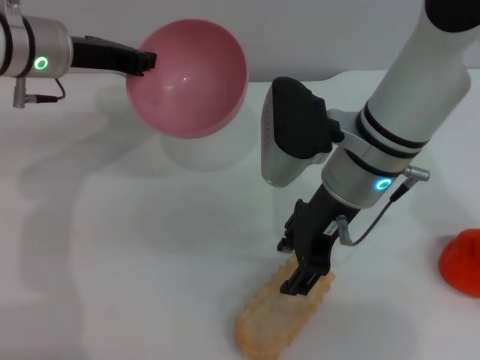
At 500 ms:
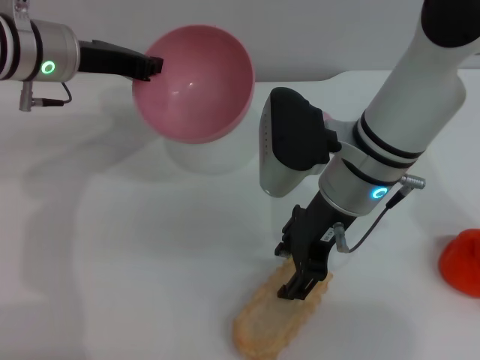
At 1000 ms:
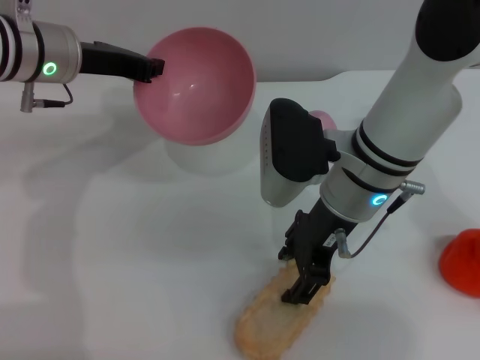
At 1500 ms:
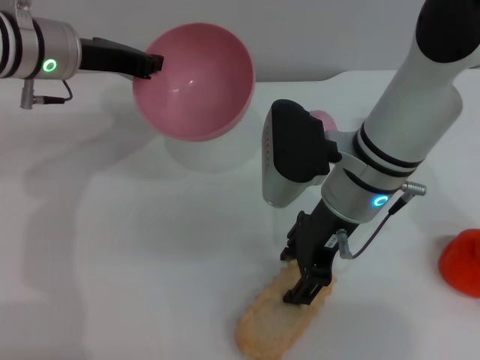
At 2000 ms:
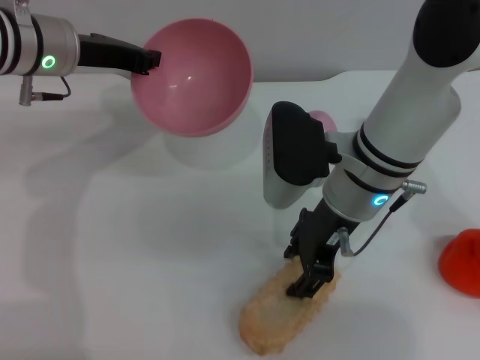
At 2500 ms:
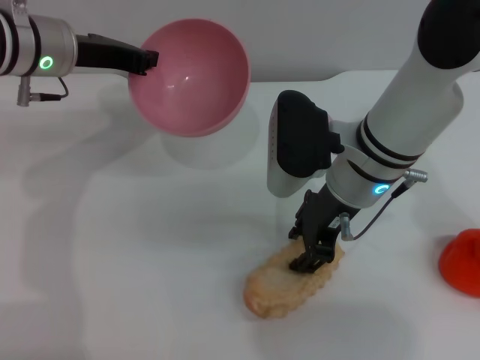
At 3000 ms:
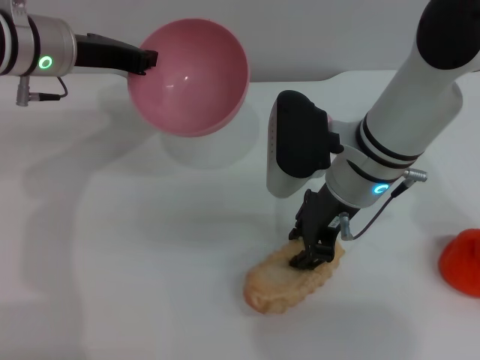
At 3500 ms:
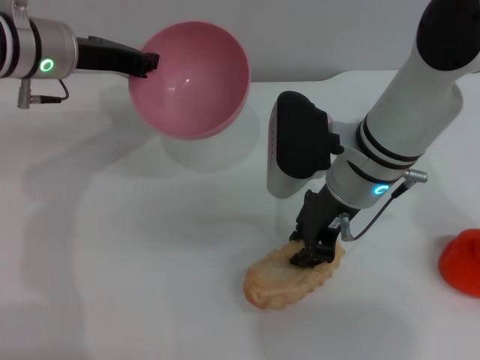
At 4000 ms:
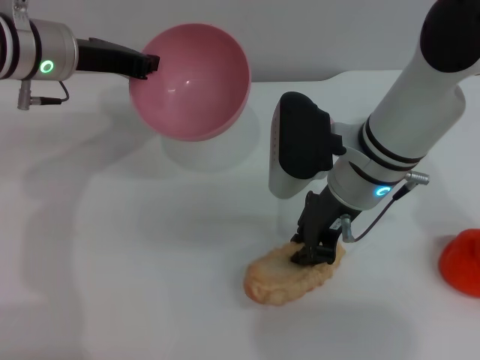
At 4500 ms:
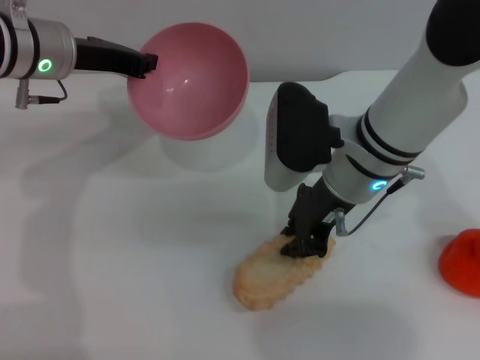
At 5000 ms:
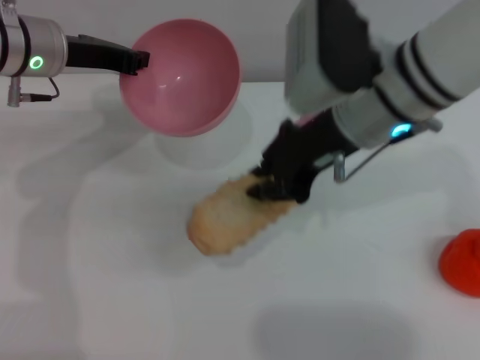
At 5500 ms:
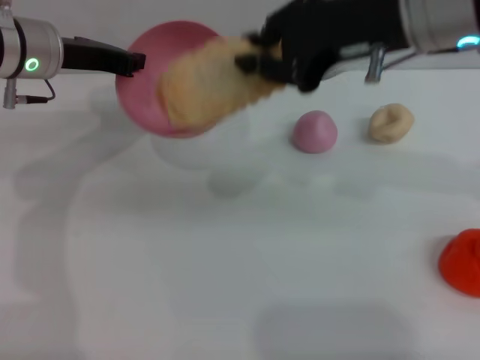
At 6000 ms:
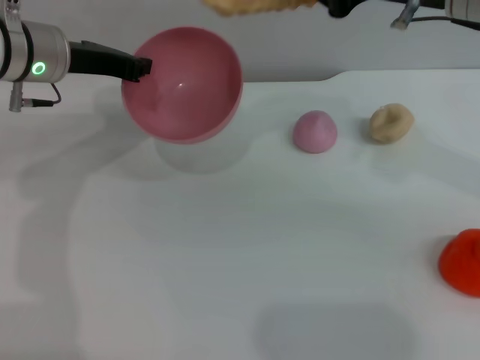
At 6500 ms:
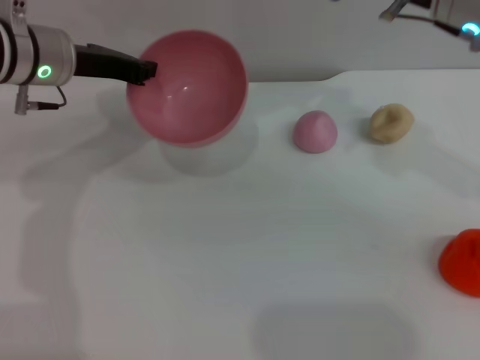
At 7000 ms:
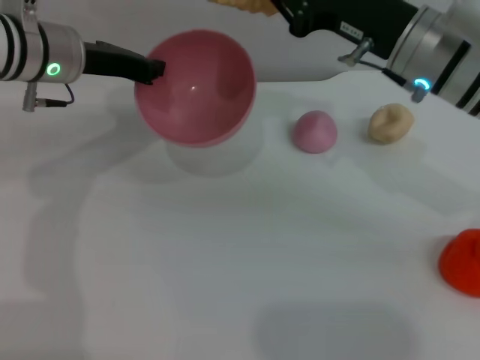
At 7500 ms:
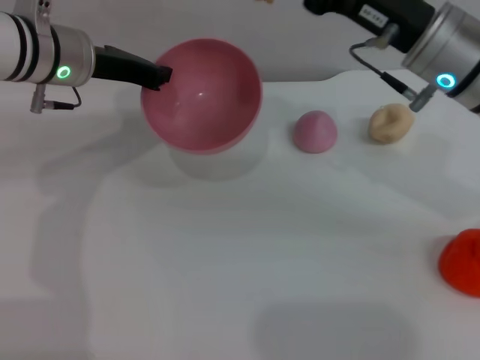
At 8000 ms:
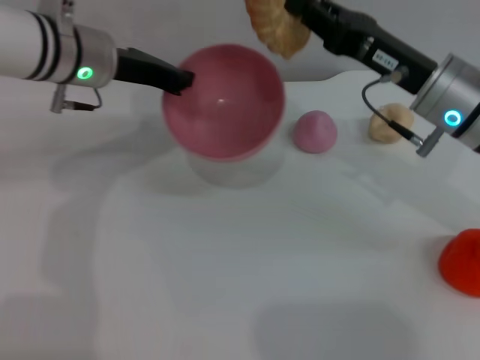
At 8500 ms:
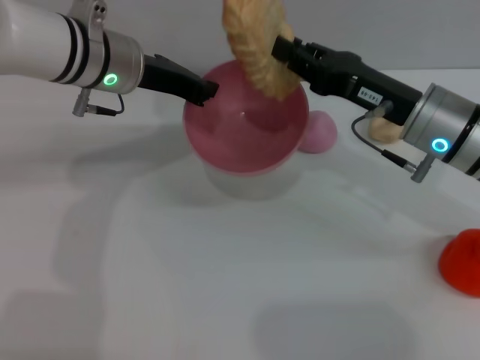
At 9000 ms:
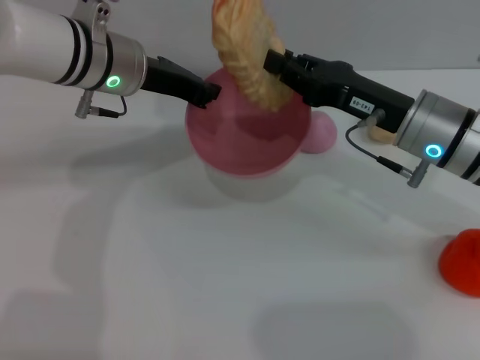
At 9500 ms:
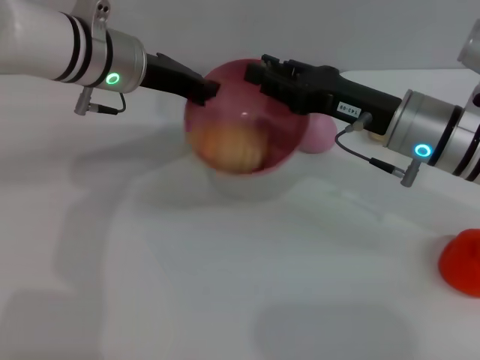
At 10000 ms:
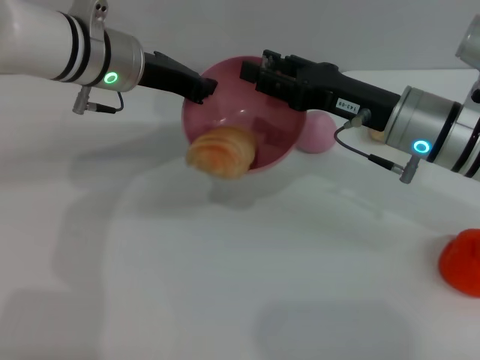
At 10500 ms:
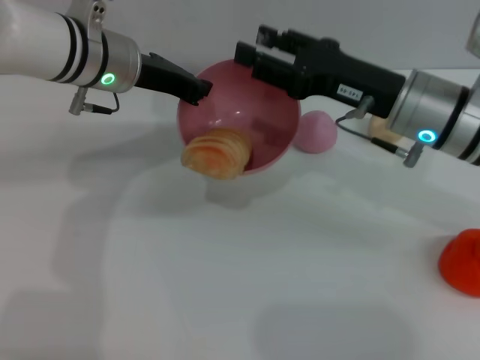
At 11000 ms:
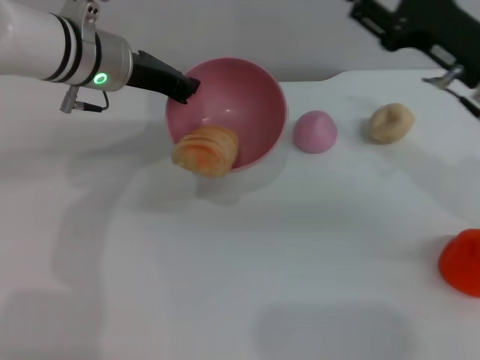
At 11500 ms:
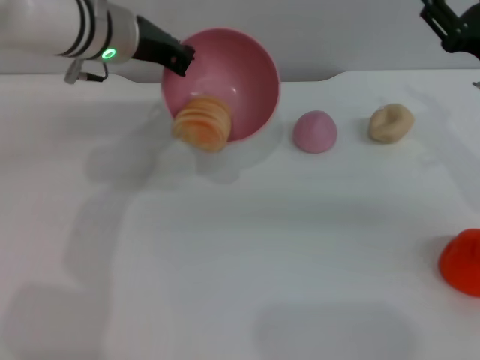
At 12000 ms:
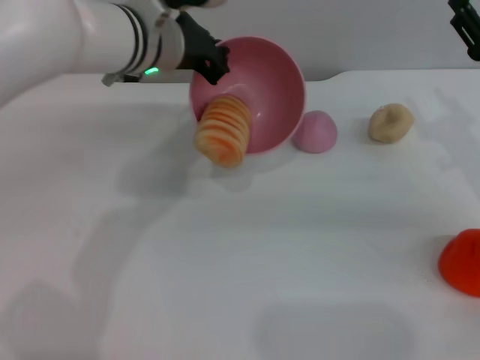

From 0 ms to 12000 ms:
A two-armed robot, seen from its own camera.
Task of the whole recording: put the bread into the pink bowl and pour it out repeatedly.
Step, from 0 ms to 5000 ms: Pick up the bread with the right gripper.
Step, from 5500 ms to 10000 ms: Place the bread into the bowl.
From 0 ms to 2000 ms: The grippers stay close to where they were, moving slightly.
From 2000 ms to 4000 ms: The right gripper closes its fingers.
From 4000 ms to 6000 ms: The right gripper goes roughly 15 cm upward and to the right.
From 6000 ms to 8000 ms: The right gripper is displaced downward by approximately 10 cm.
From 8000 ms to 10000 ms: The right gripper opens up.
From 10000 ms to 12000 ms: The right gripper heads to the right, covering some 10 cm.

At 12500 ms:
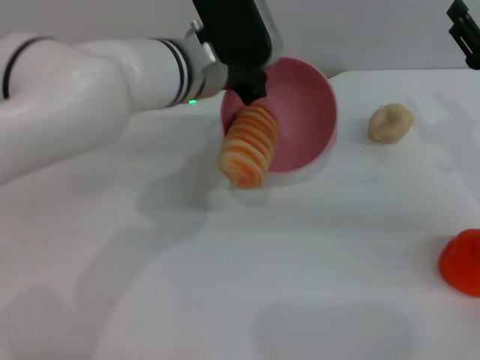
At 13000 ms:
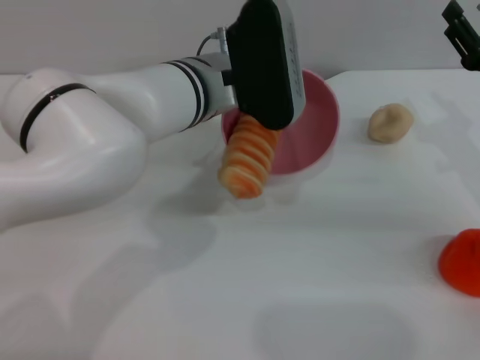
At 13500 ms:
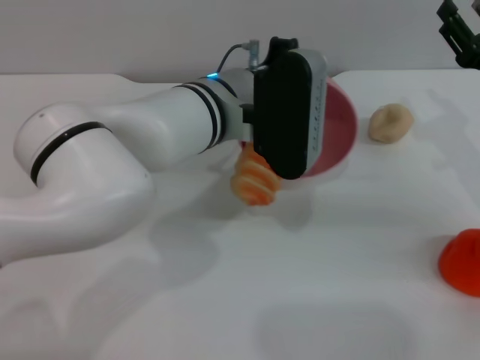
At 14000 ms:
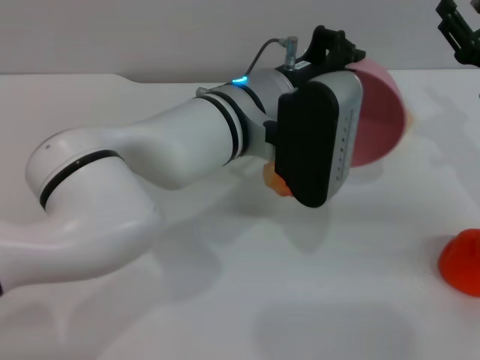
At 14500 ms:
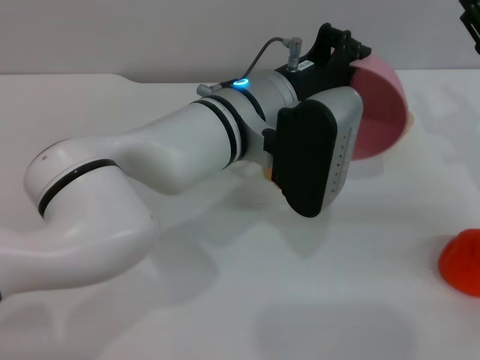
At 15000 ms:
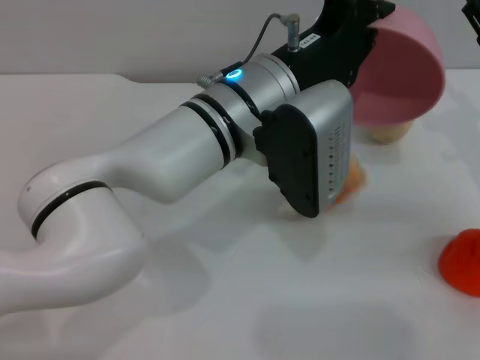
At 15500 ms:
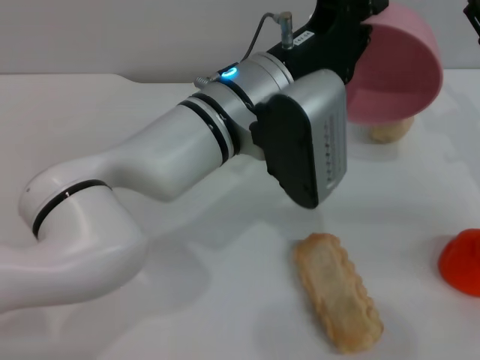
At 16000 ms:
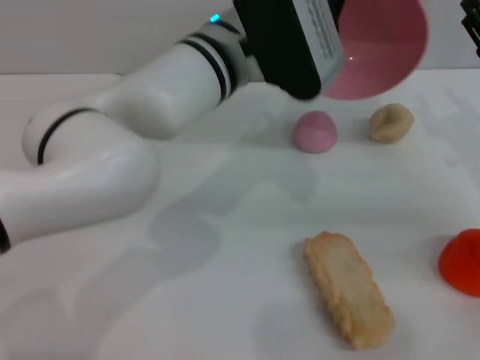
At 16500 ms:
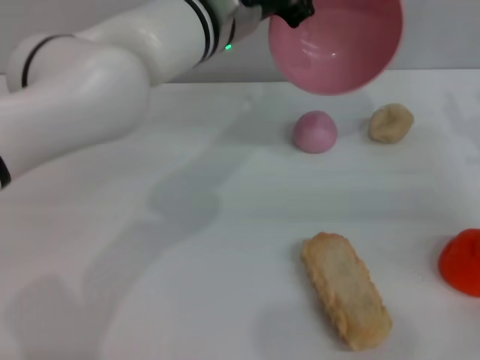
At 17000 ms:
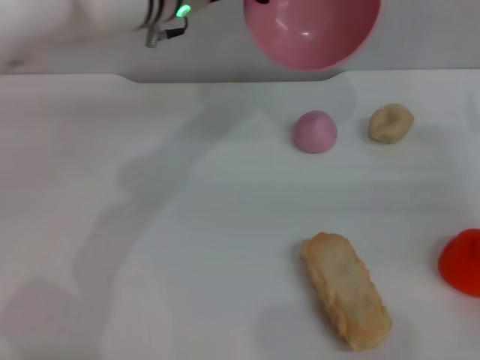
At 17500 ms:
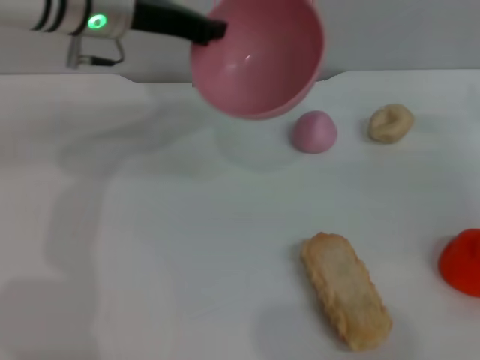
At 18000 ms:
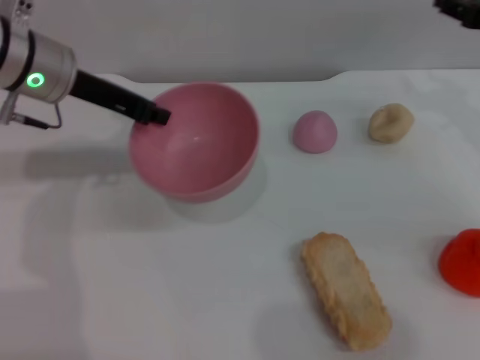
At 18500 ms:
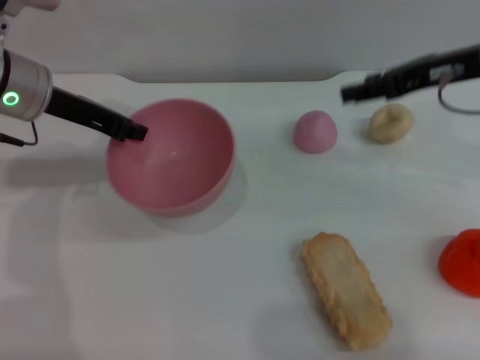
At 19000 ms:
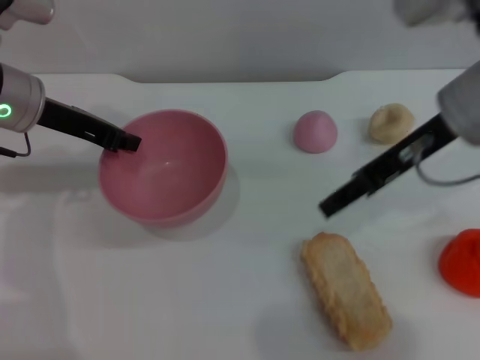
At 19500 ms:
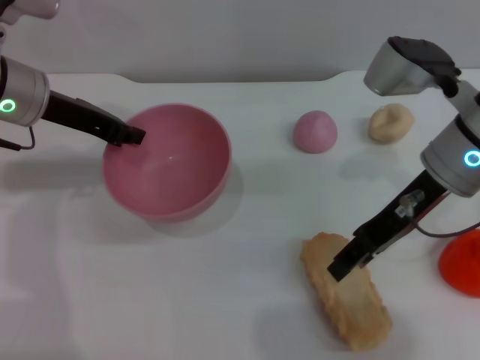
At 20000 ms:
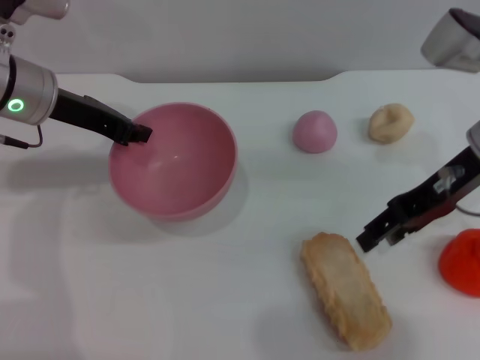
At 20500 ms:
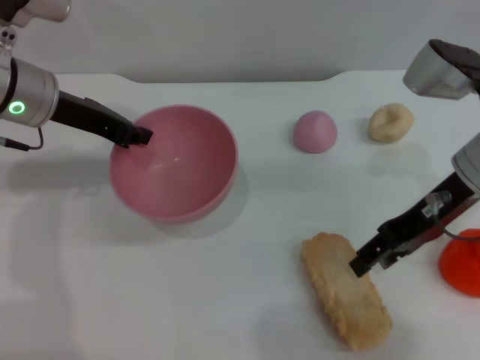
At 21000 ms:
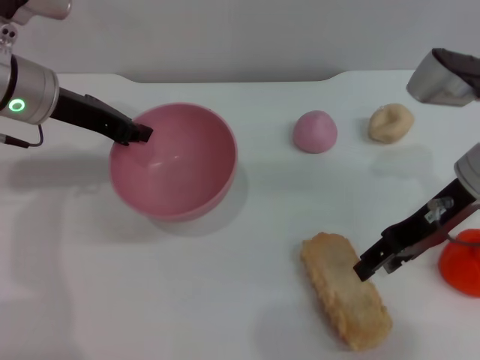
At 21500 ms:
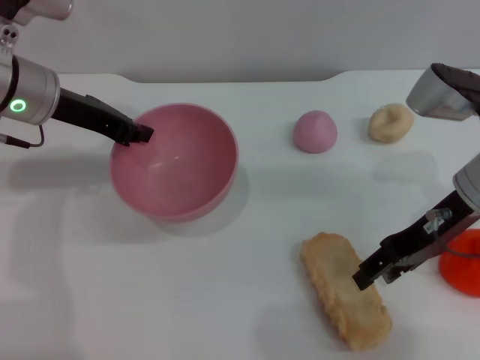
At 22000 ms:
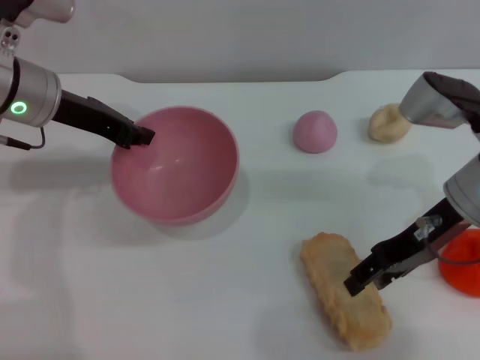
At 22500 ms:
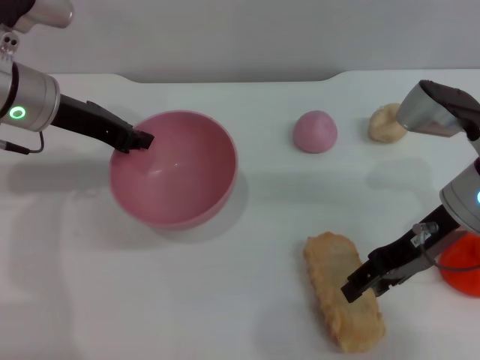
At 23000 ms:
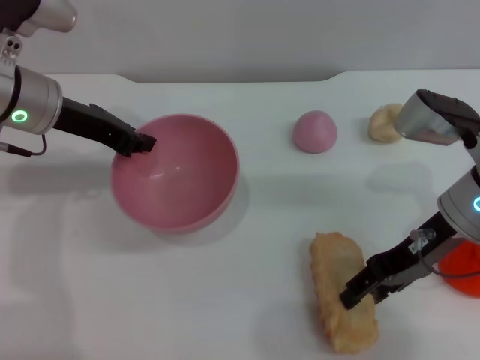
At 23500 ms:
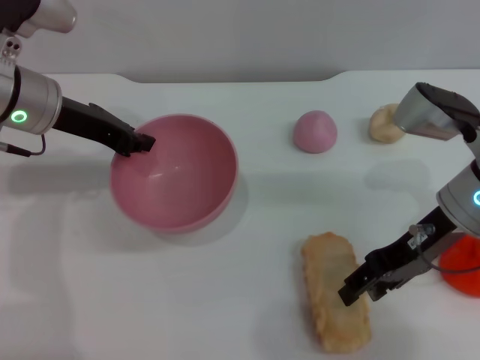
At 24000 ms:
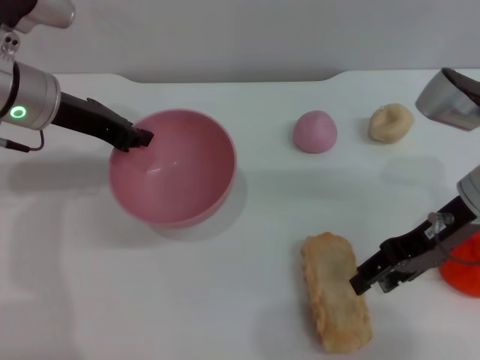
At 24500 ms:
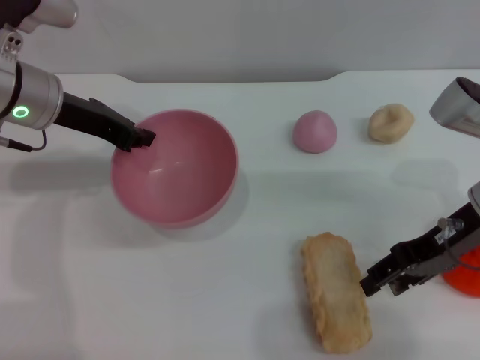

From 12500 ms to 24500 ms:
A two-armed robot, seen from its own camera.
Task of the whole recording: put the bread into the pink bowl and pour it out repeatedly.
Step, from 12500 ms to 15500 ms: Pour the bread out of the bowl.
From 12500 ms to 14500 ms: The left gripper goes approximately 5 cm backward.
From 14500 ms to 16500 ms: The left gripper shifts roughly 5 cm forward.
From 16500 ms to 18500 ms: The right gripper is displaced upward and to the left by approximately 15 cm. The left gripper goes some 20 cm to the left.
From 18500 ms to 20500 ms: The right gripper shifts approximately 5 cm downward.
From 20500 ms to 24500 ms: The grippers move only a little.

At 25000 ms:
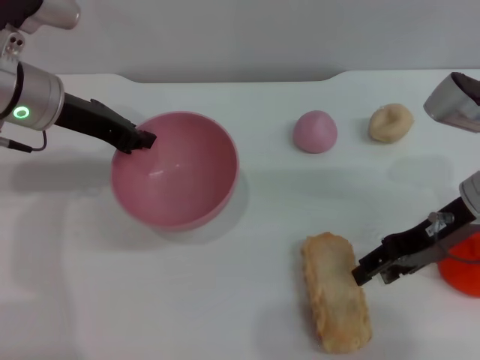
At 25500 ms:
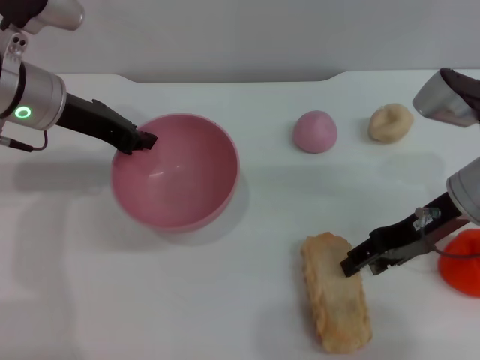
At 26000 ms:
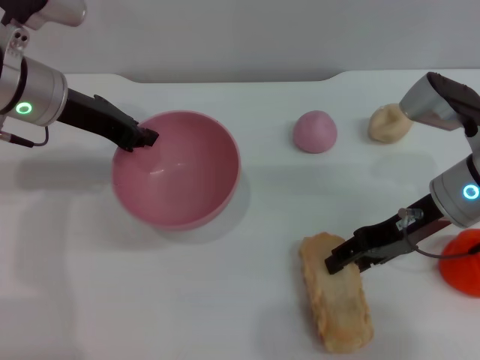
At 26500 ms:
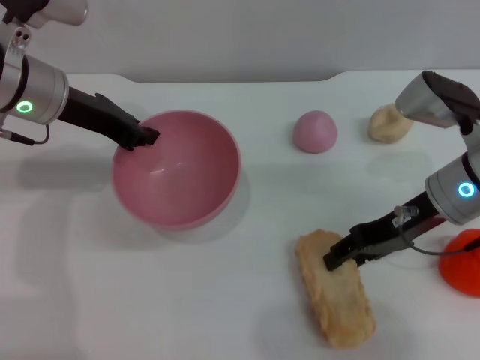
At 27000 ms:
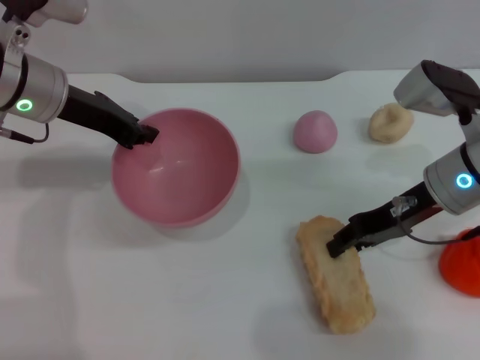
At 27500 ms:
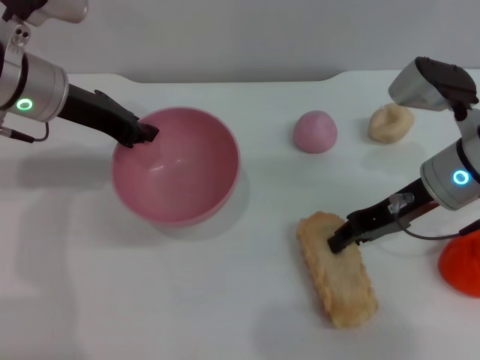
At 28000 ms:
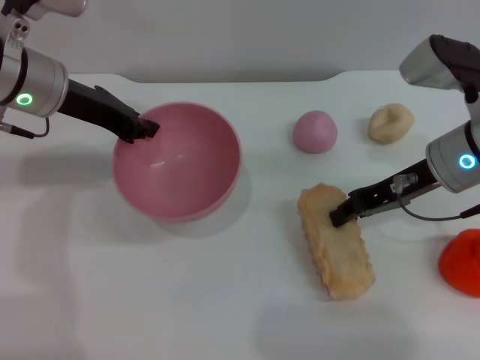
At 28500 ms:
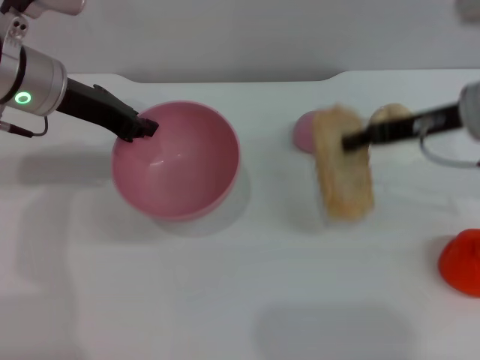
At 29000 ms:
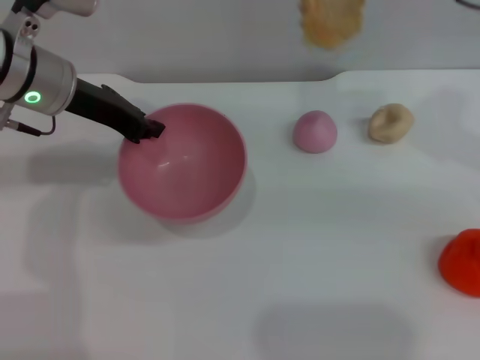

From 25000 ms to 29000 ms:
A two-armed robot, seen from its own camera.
Task of the whole recording: put the bread into the pink bowl and pour it out repeatedly.
Step, from 25000 ms to 28500 ms: Pick up the bread with the right gripper.
From 25000 ms to 27000 ms: The grippers make only small movements.
From 27000 ms to 29000 ms: The right gripper shifts some 20 cm upward, and closes its fingers.
